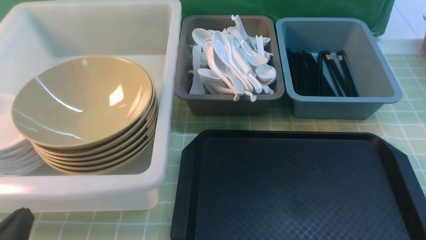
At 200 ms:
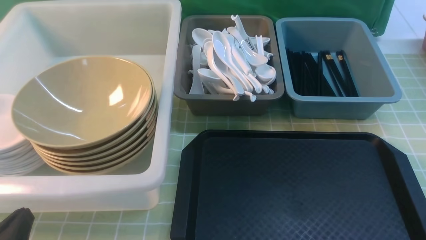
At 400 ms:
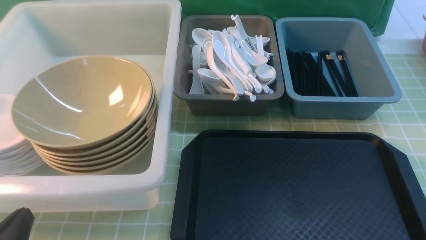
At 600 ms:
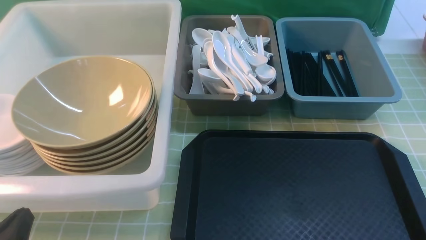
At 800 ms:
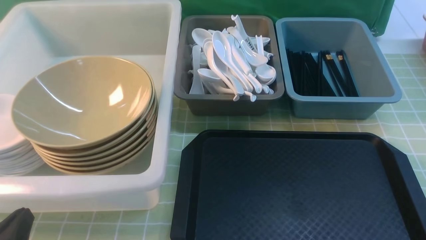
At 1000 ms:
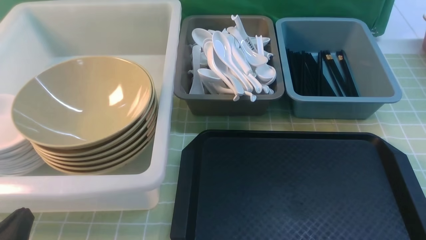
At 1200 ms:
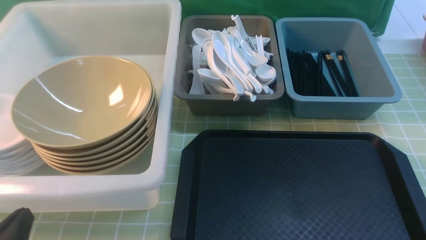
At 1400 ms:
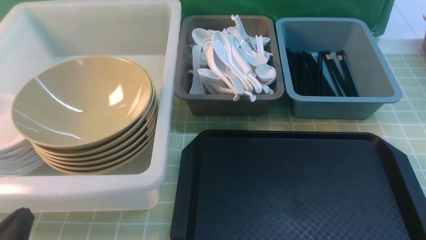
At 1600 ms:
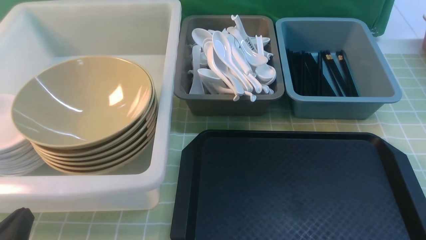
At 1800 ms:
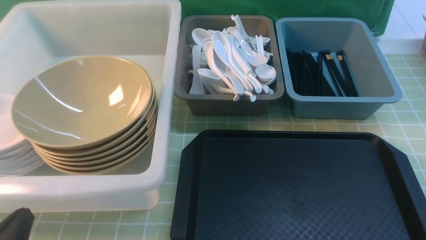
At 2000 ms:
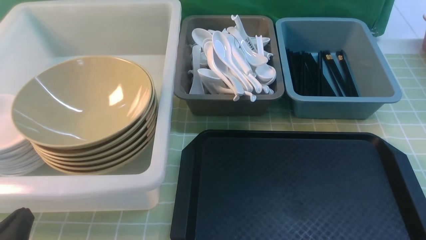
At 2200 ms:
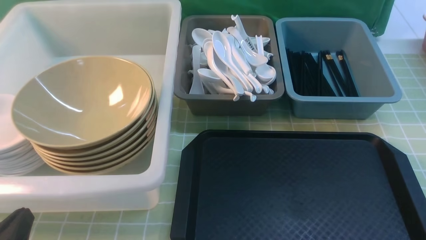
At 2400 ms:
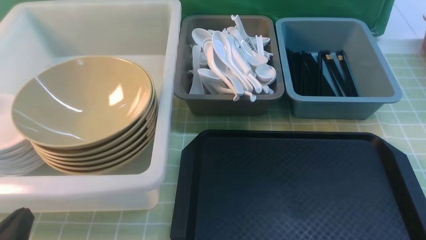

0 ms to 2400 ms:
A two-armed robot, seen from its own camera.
Task of the whole recording: on green table put chopsticks spoon bowls plates into blue grey white boxes.
1200 ms to 2400 ms: Both grippers stay put.
